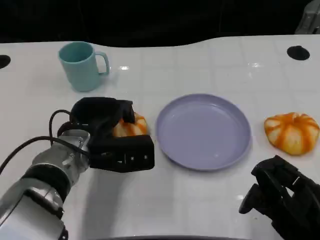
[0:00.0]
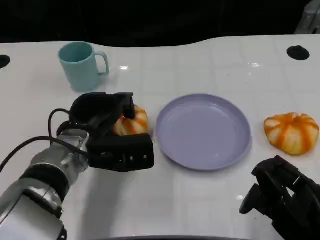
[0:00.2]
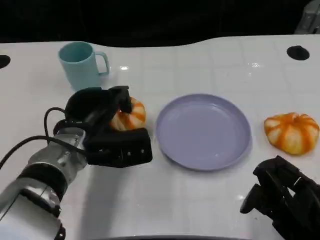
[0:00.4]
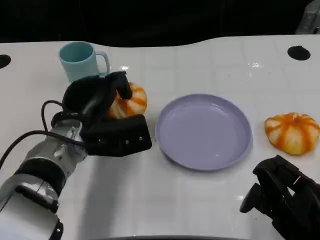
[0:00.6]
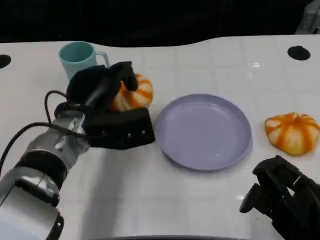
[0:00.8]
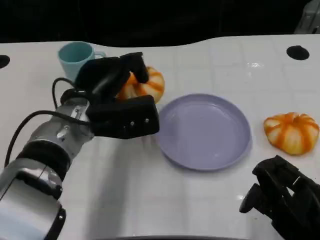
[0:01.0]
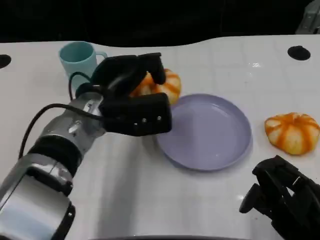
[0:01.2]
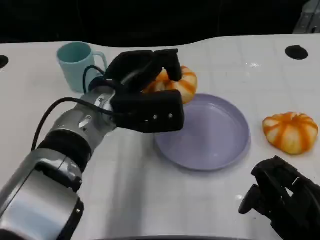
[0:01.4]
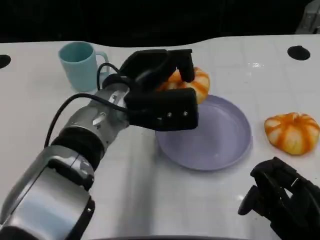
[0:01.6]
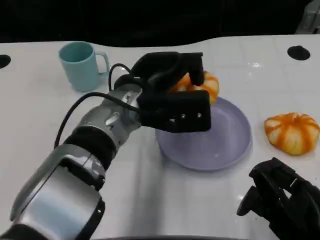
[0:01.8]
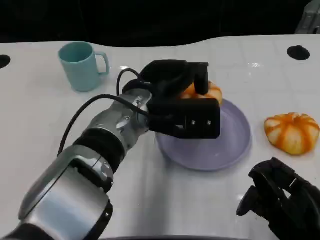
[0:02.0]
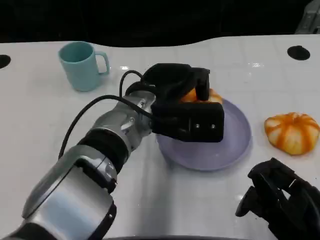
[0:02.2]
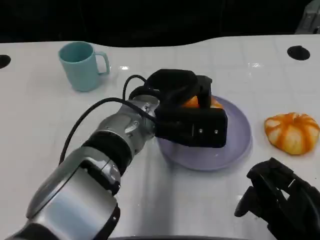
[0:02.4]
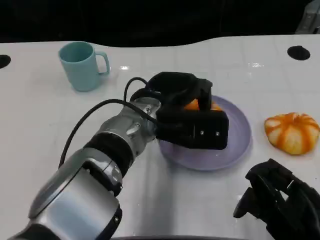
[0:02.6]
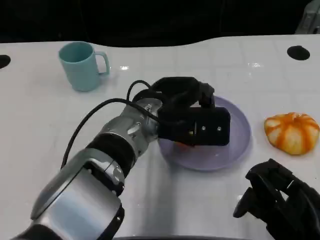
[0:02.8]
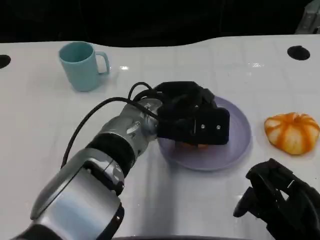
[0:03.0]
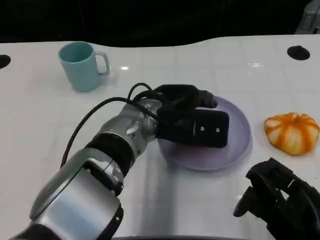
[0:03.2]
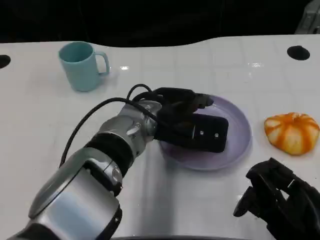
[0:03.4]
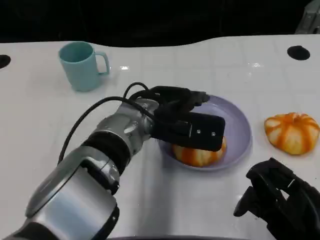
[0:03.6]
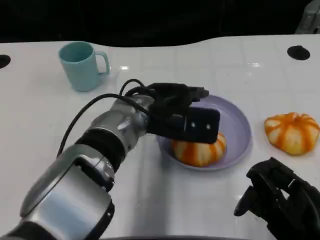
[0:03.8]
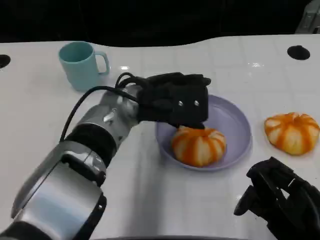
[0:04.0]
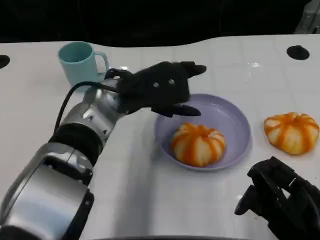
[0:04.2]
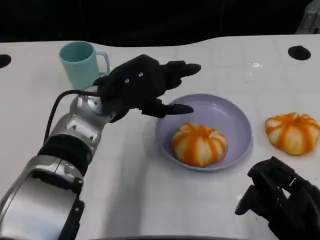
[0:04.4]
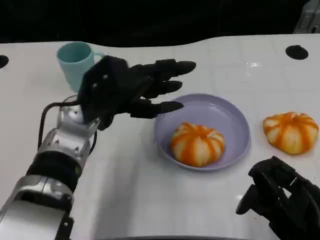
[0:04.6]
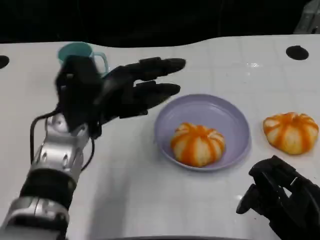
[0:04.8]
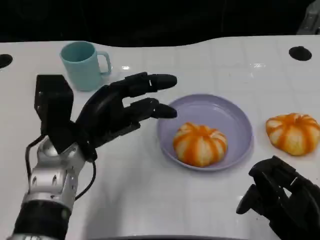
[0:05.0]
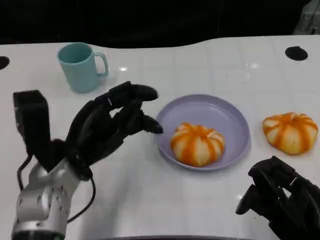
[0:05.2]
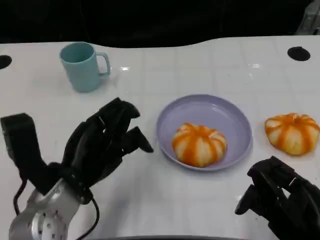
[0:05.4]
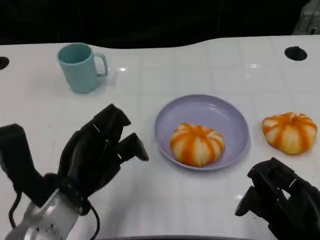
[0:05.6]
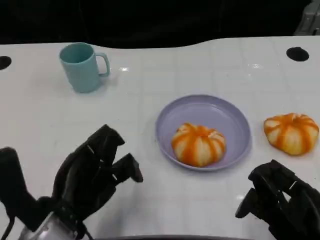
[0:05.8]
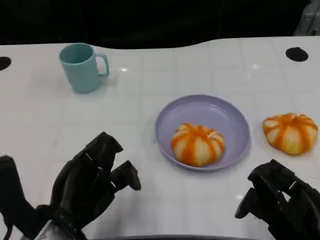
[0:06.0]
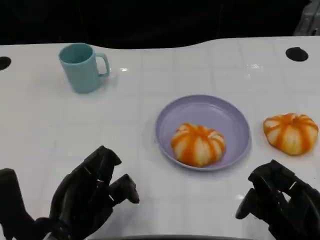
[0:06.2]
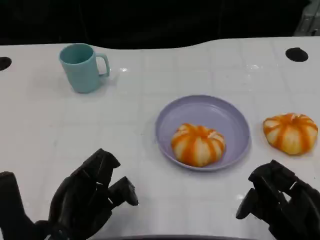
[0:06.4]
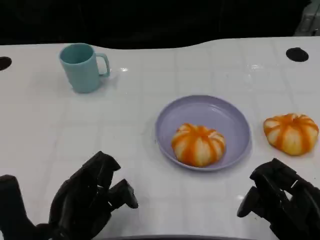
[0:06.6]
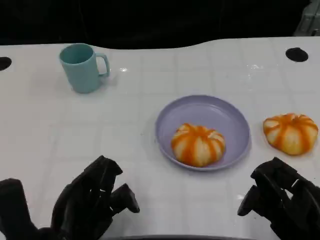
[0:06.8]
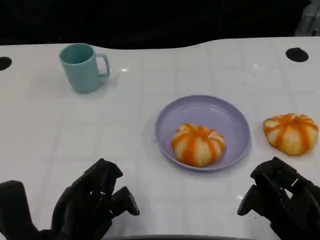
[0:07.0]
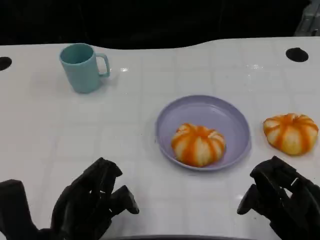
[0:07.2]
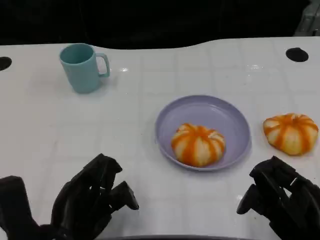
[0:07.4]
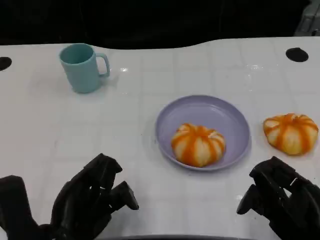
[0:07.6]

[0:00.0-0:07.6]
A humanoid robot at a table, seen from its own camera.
Task of the whole recording: Grasp the bread from the table and place it into the plate.
0:00.0 to 0:01.6: The left hand shifts some 10 cm upward and to the right.
0:03.0 to 0:04.6: The left hand heads to the left, covering roughly 10 cm.
0:04.6 to 0:06.0: The left hand is displaced backward by some 15 cm.
0:06.0 to 0:07.6: There are only small adjustments of the hands.

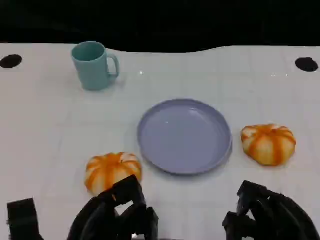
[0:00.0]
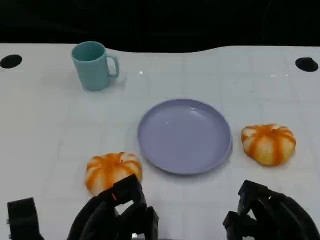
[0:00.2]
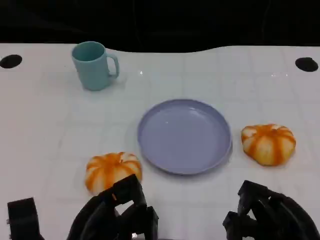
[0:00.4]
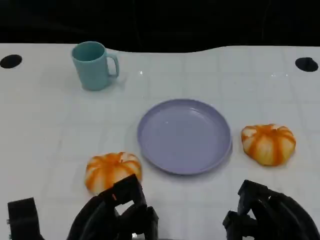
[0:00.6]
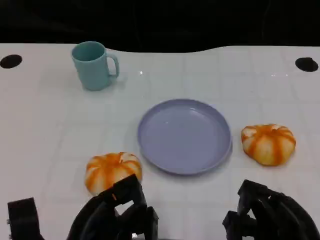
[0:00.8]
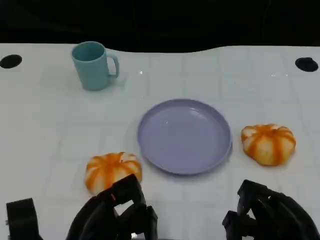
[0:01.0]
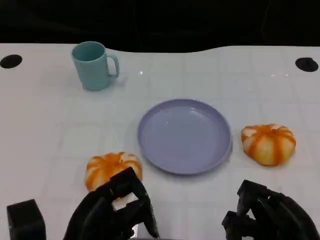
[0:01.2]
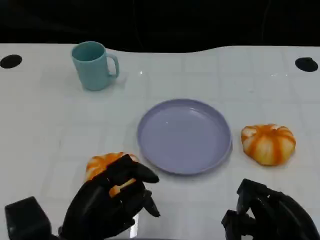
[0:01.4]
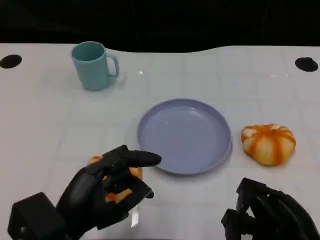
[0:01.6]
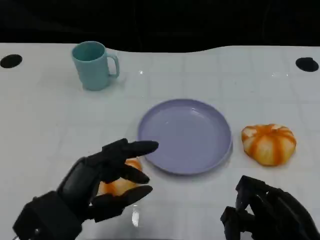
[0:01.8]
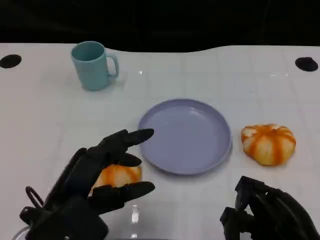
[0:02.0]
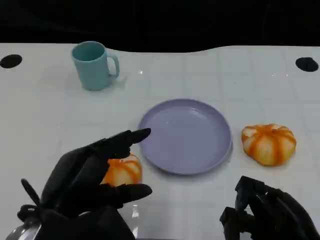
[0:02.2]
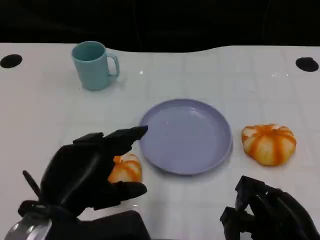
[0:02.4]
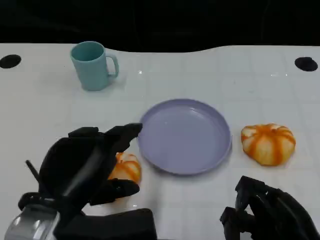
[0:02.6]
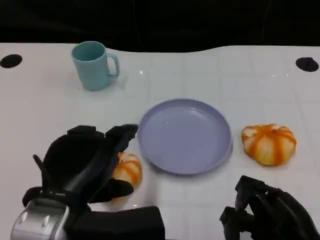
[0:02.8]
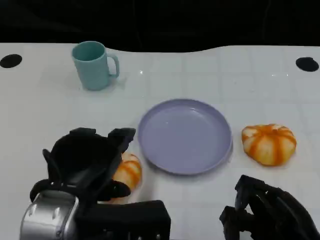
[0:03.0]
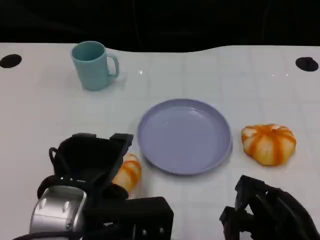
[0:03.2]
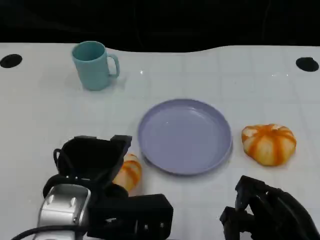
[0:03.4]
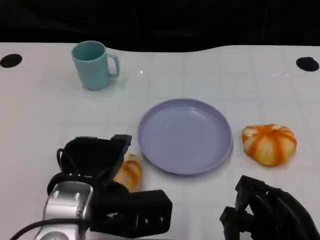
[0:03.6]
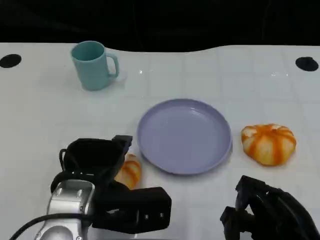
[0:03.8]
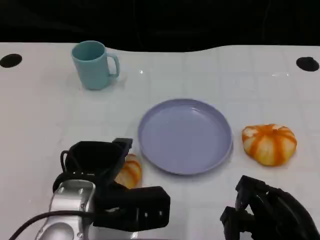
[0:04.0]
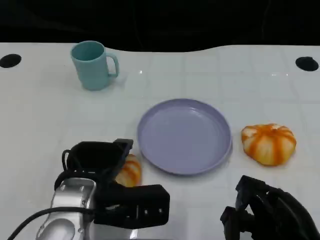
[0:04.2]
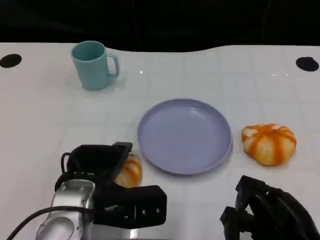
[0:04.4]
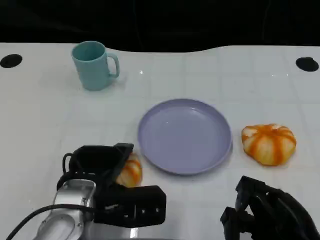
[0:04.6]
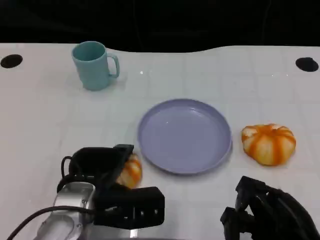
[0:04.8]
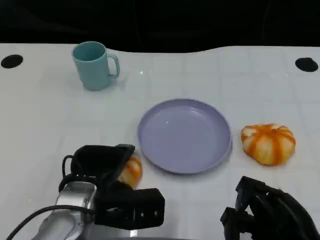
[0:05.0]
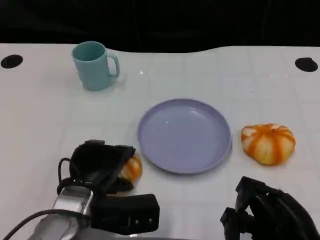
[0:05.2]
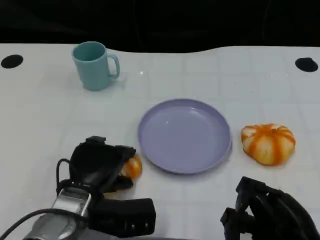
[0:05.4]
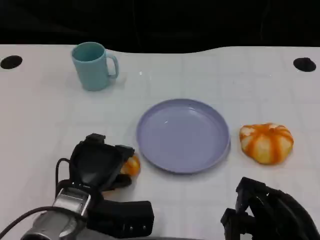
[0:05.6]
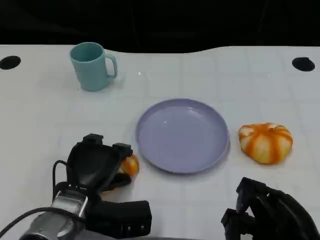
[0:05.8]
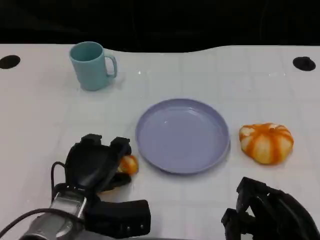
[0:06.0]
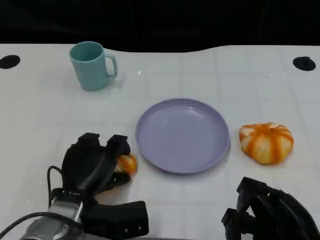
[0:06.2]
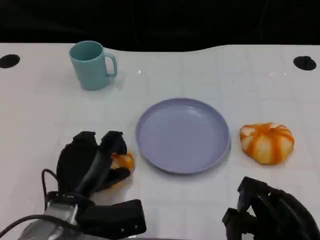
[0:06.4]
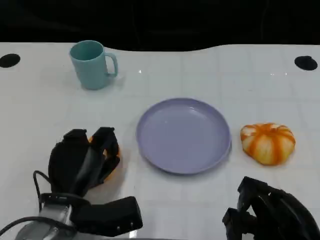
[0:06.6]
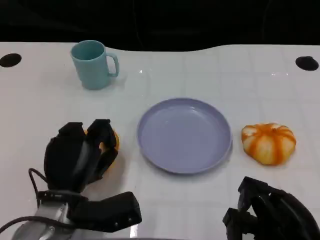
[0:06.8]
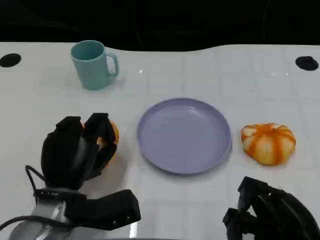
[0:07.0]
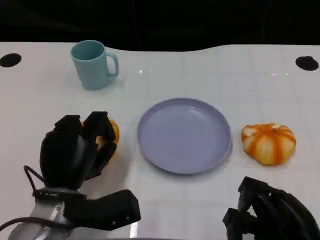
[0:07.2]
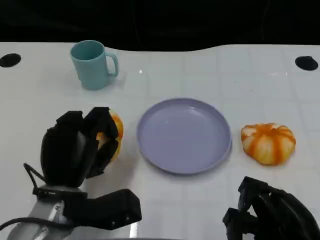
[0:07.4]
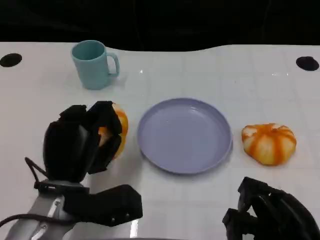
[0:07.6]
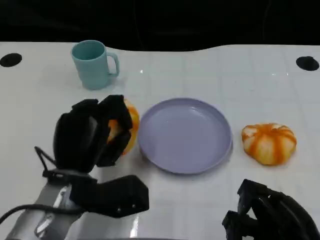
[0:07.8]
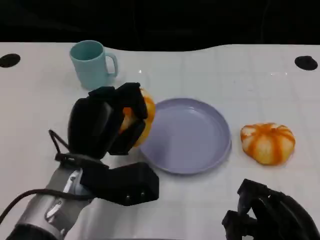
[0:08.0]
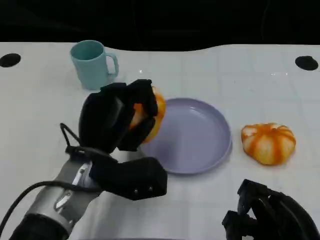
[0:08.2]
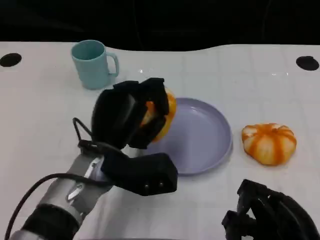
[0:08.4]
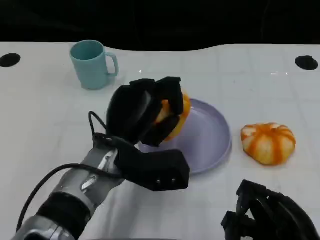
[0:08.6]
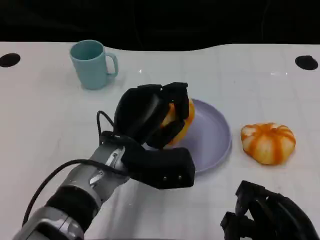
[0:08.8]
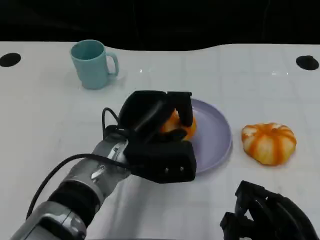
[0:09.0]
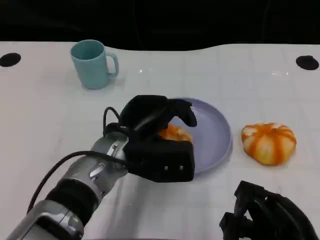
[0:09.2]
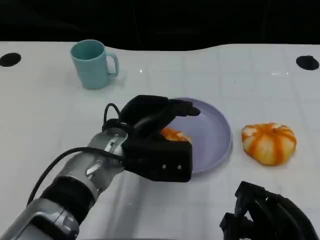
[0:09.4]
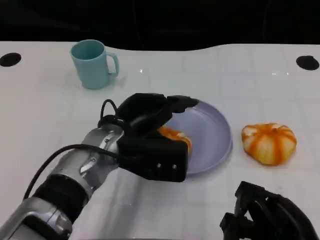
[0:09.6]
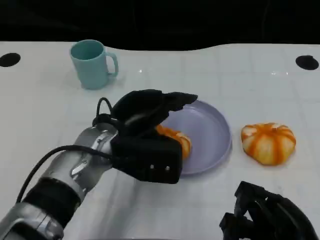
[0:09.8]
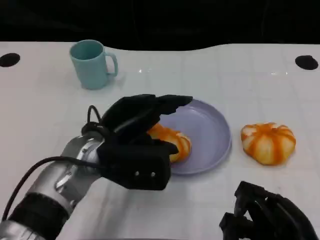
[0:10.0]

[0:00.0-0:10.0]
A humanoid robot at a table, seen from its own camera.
Task of the whole recording: Grasp the bread from the table and place it into the plate.
0:01.4 to 0:02.8: The left hand shifts some 10 cm upward.
0:02.8 to 0:04.2: The left hand travels downward and forward by some 10 cm.
0:04.2 to 0:05.8: The left hand heads downward, covering approximately 5 cm.
0:07.2 to 0:08.6: The left hand goes approximately 10 cm to the right and upward.

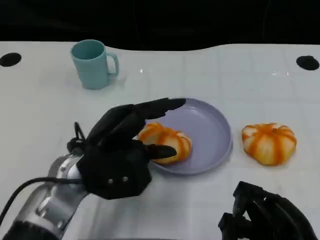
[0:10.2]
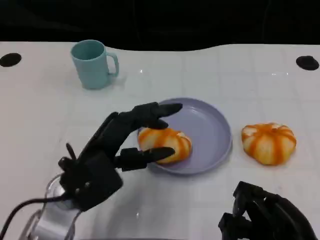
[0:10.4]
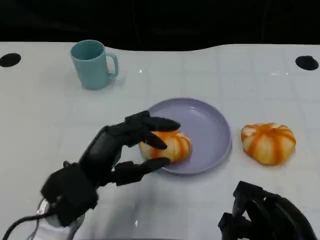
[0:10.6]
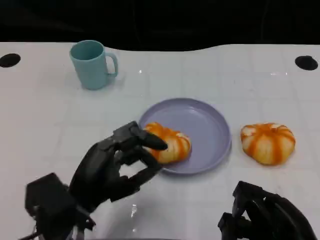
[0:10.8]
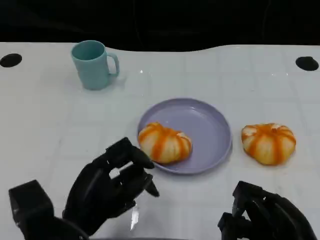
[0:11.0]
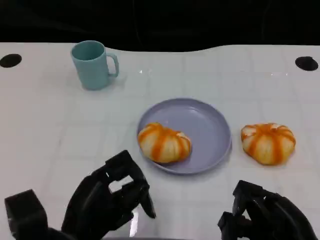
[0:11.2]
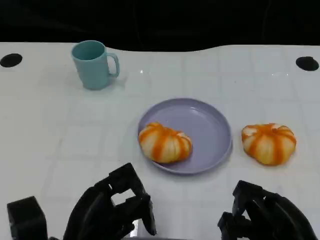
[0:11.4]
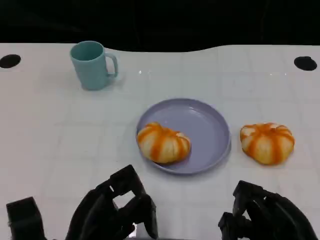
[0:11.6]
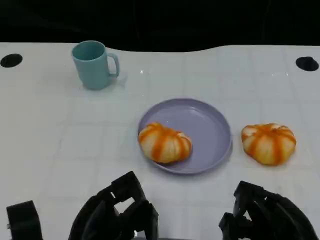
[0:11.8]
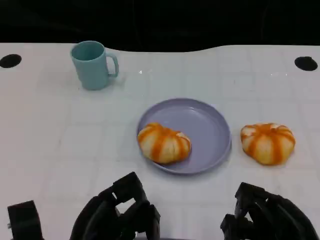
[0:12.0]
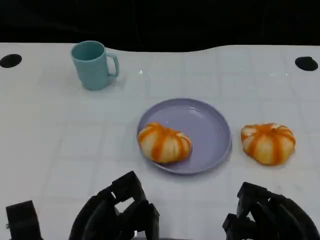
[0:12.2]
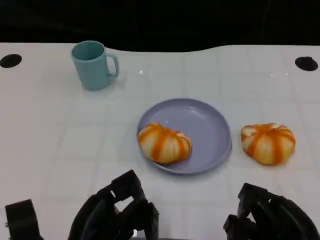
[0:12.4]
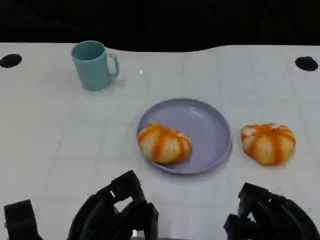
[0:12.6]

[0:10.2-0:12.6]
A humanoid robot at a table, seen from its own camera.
Task of the whole recording: Grasp the bread from the table and place it into the plate.
0:10.2 to 0:11.4: The left hand is displaced backward and downward by approximately 10 cm.
0:11.4 to 0:12.6: The hands move only a little.

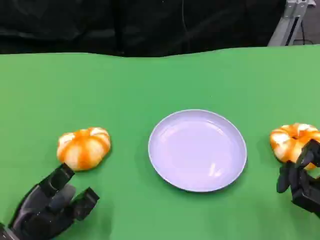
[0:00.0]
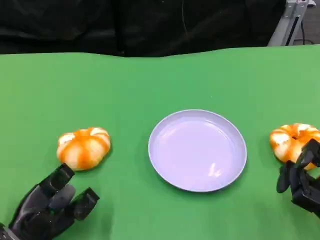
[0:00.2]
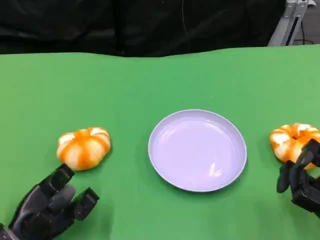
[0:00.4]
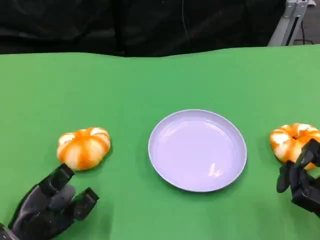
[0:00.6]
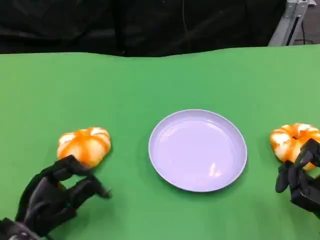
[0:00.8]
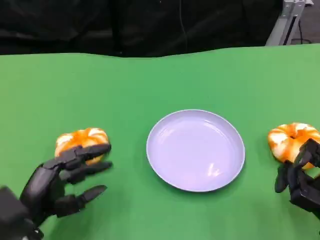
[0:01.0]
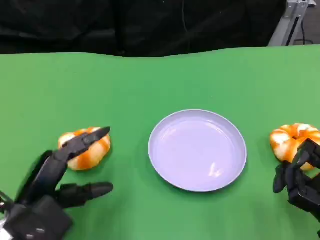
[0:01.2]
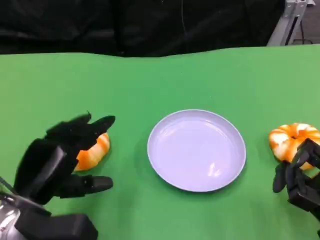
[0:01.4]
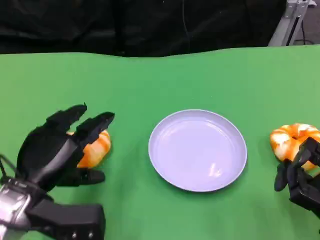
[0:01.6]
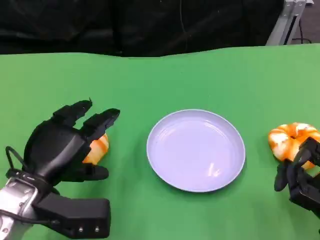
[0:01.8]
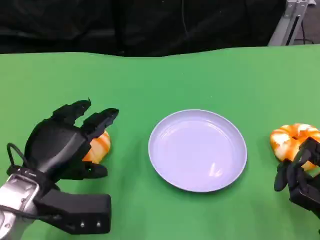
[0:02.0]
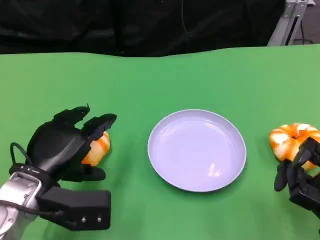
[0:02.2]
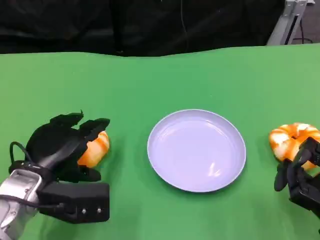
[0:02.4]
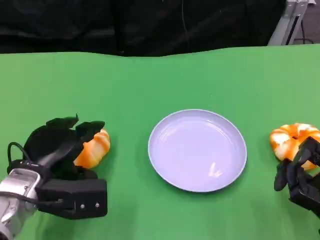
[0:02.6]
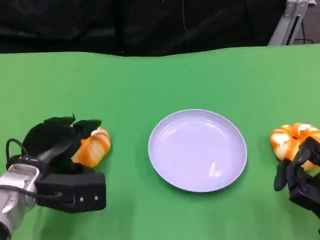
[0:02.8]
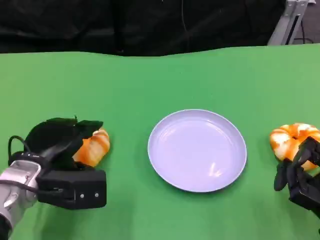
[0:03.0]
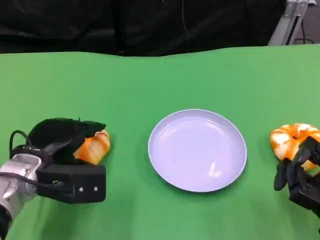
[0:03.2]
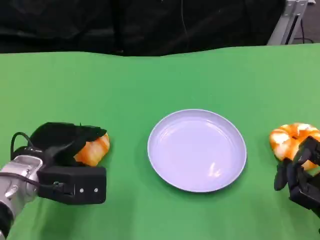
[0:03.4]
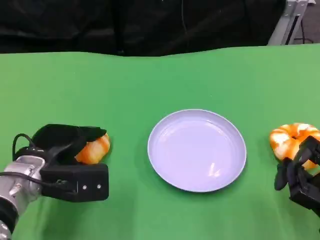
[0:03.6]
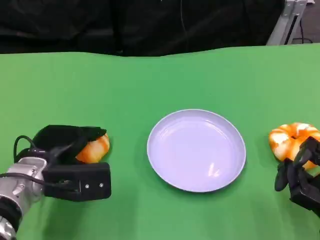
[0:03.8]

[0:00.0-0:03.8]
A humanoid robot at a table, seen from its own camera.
Task of the whole recording: Grasp the bread from the table and place it into the plate.
0:00.0 to 0:01.2: The left hand shifts roughly 5 cm upward.
0:01.2 to 0:02.6: The left hand travels forward by some 5 cm.
0:02.6 to 0:03.8: The hands stay close to where they were, moving slightly.
